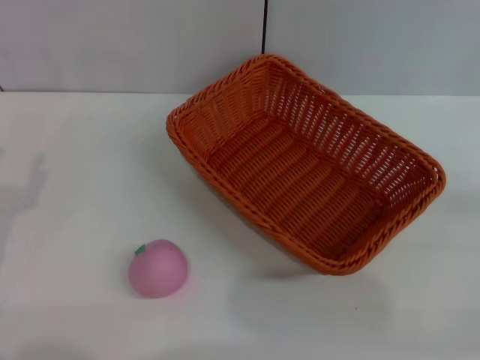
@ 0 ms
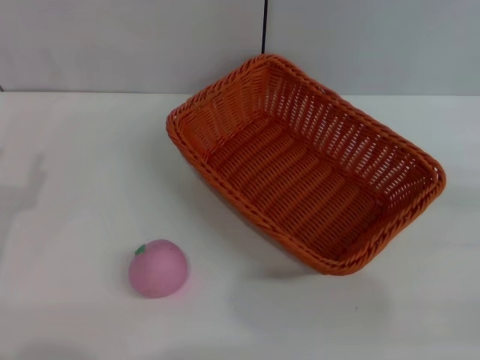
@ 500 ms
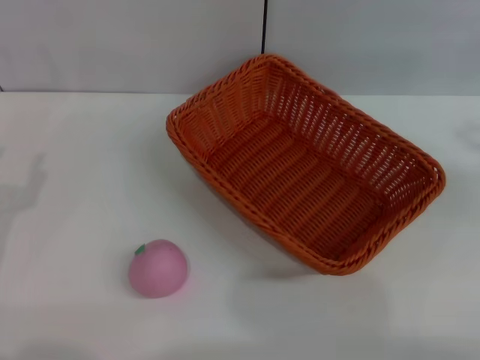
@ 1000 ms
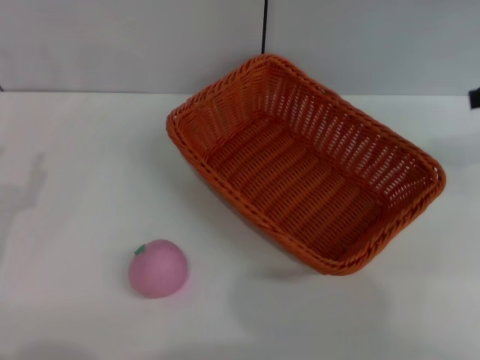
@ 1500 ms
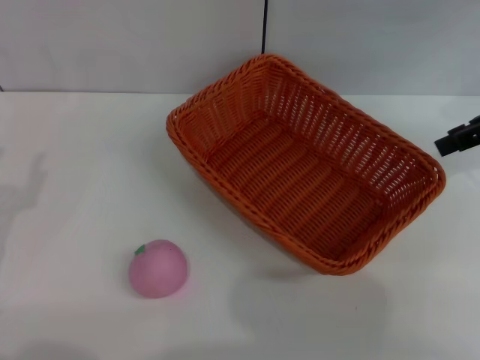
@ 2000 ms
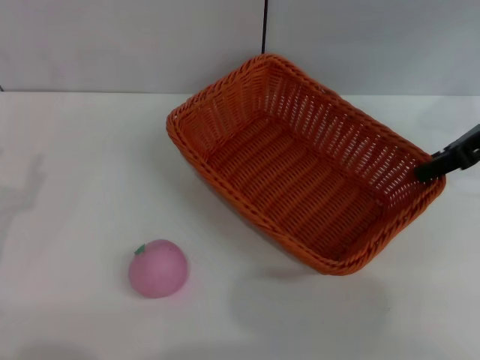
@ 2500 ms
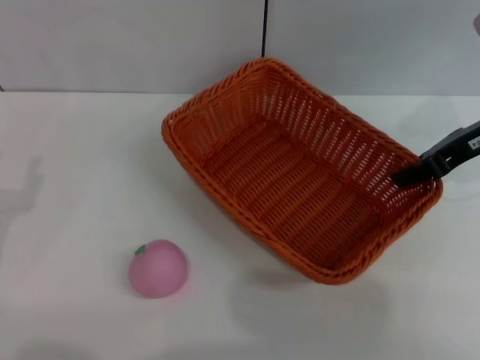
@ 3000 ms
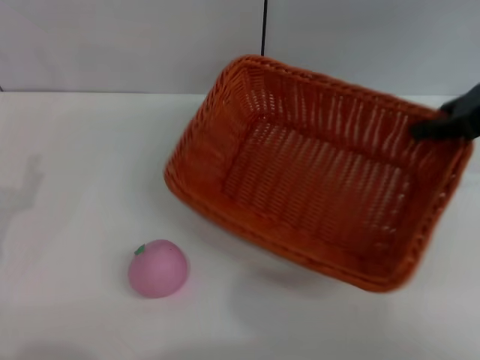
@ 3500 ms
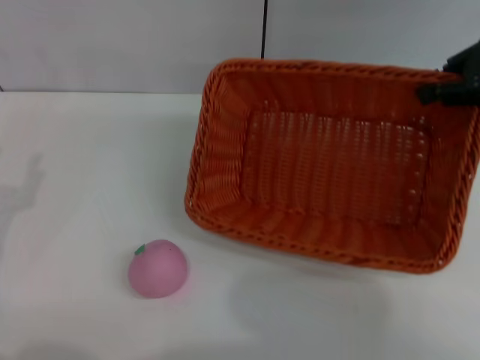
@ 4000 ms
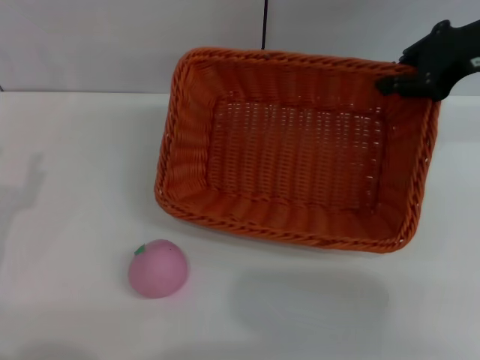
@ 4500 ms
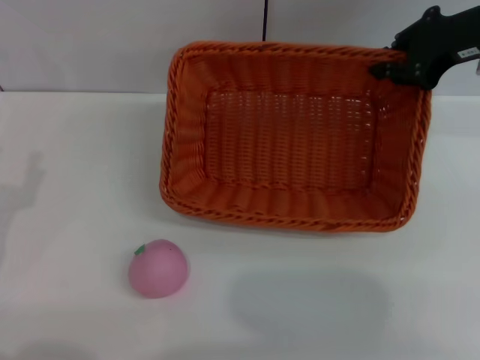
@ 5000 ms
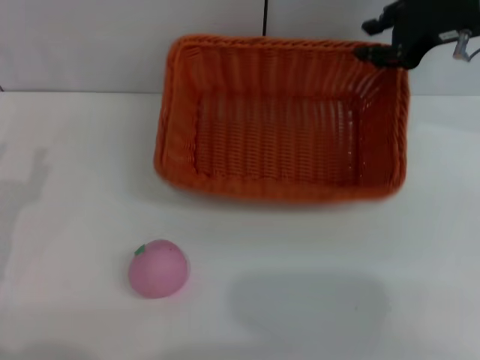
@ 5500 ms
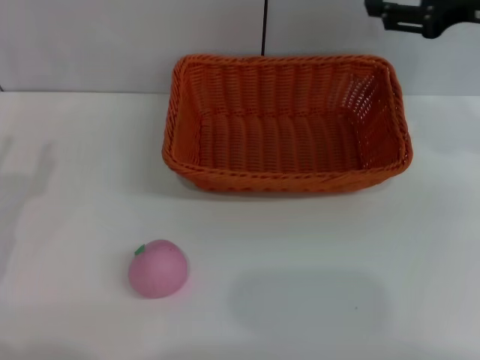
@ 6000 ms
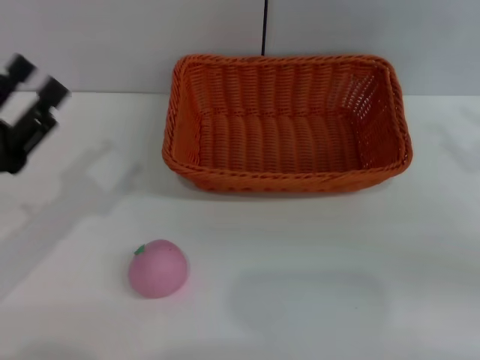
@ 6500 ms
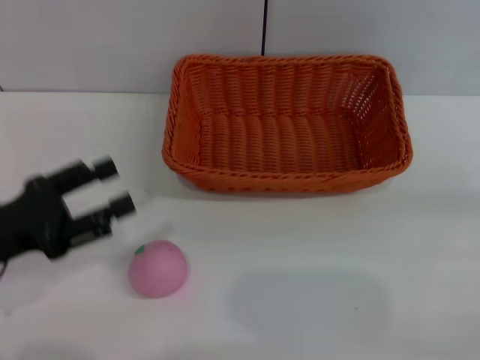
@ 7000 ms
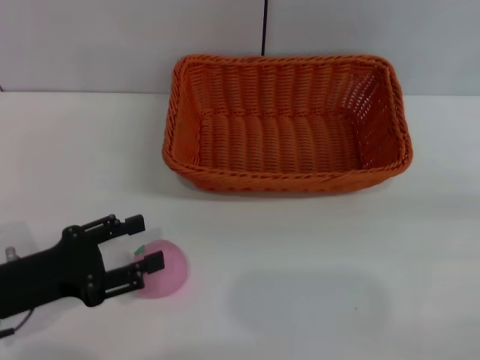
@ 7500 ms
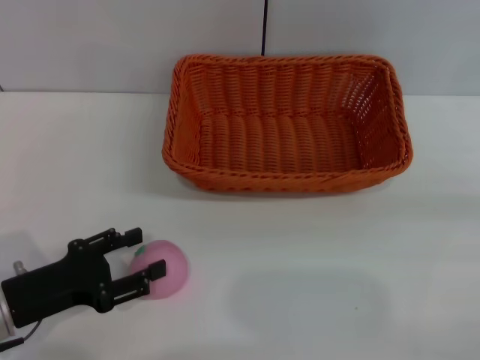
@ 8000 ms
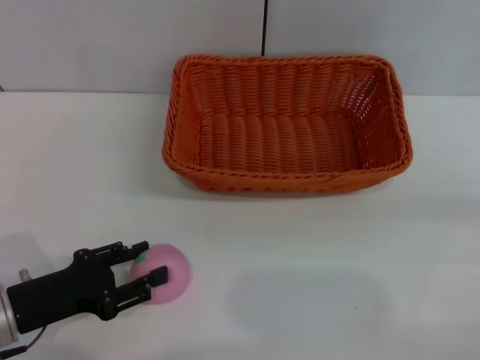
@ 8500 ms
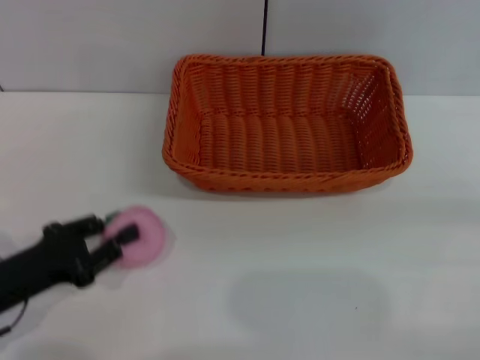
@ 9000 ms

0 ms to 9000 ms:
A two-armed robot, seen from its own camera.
Step, 0 ms to 3500 ms: Pick up the light basket with the right gripper.
Step, 4000 ms to 5500 ms: Place the light basket in the center of view with the right gripper.
0 ms to 2000 ms: The right gripper shifts approximately 25 cm forward, upward and to the left.
2000 ms to 4500 ms: The right gripper shifts about 5 cm to the left, goes downward and returns, roughly 5 cm each way, and closes up.
4500 ms to 7000 ms: The right gripper moves backward, to the right and downward, approximately 30 cm, and opens.
7000 ms to 9000 ms: The left gripper closes.

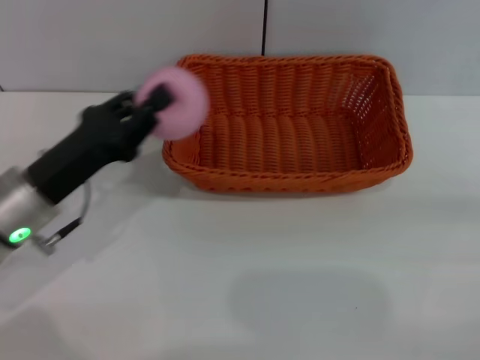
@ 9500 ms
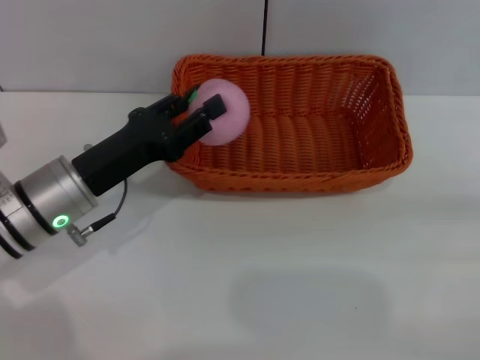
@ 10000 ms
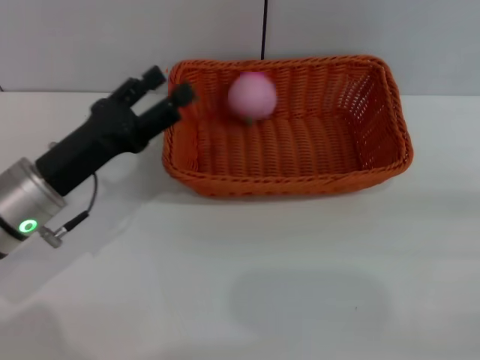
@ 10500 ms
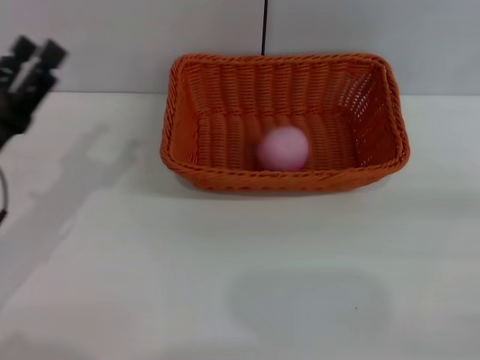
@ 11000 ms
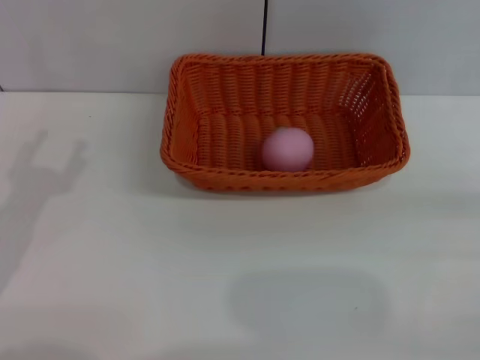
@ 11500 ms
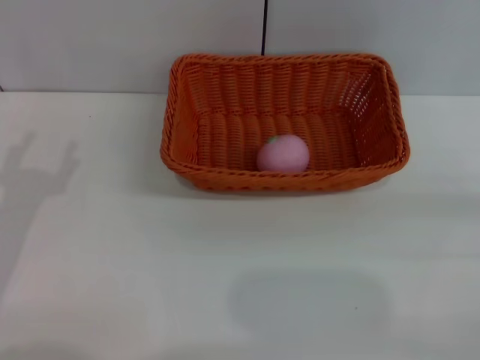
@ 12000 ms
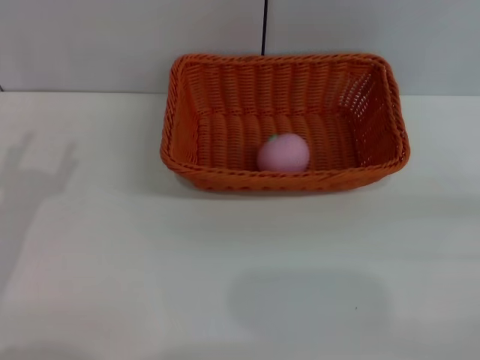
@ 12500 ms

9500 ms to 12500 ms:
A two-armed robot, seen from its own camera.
Step, 9500 ms to 10000 ms: Place the peach into the basket with the left gripper.
9500 ms to 11000 ms: The left gripper shifts roughly 5 cm to the left, and opens its fingers.
